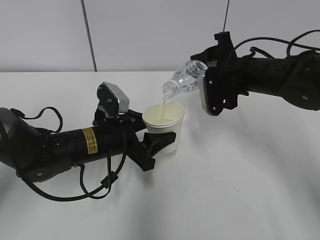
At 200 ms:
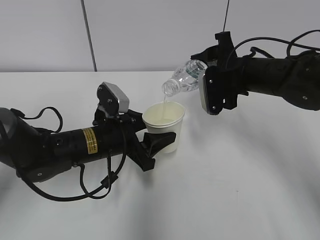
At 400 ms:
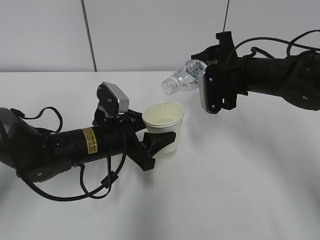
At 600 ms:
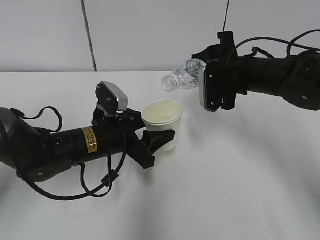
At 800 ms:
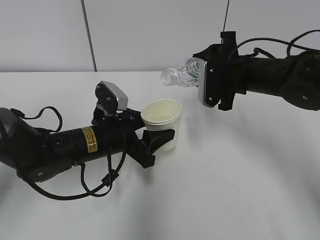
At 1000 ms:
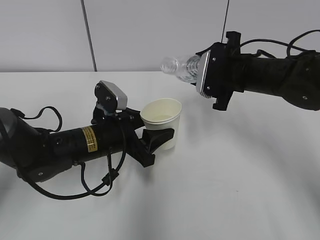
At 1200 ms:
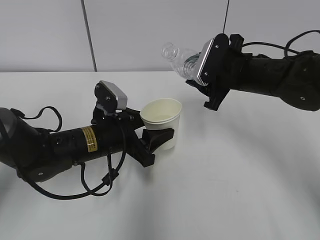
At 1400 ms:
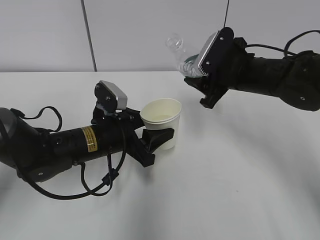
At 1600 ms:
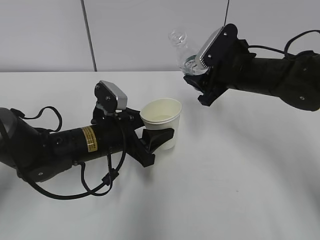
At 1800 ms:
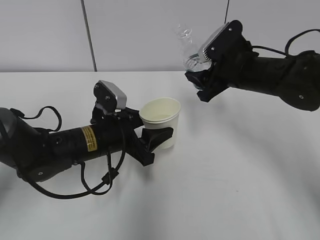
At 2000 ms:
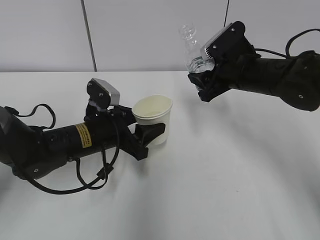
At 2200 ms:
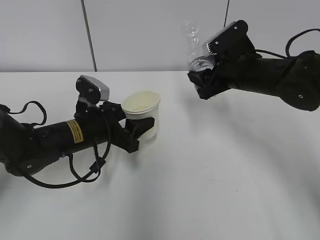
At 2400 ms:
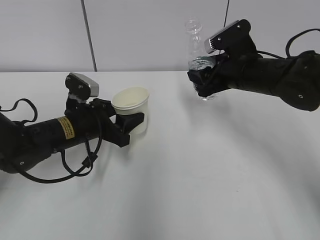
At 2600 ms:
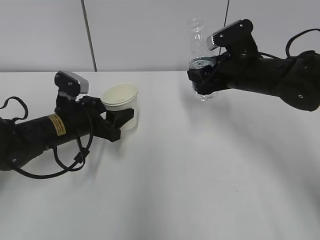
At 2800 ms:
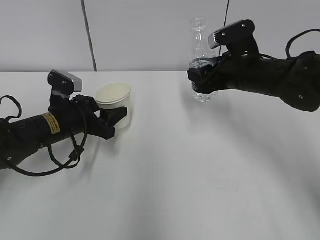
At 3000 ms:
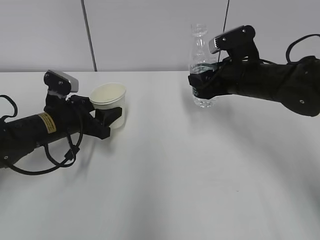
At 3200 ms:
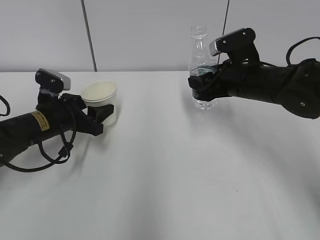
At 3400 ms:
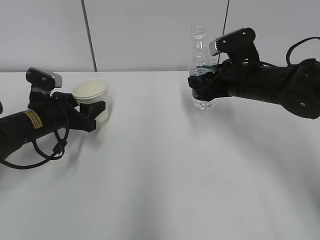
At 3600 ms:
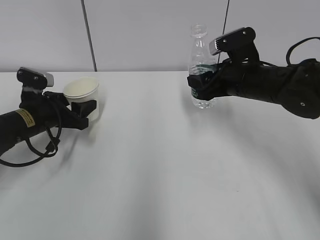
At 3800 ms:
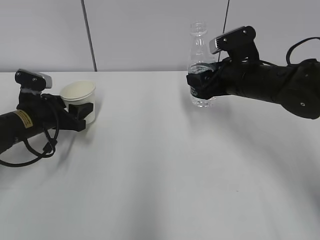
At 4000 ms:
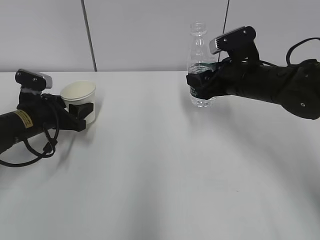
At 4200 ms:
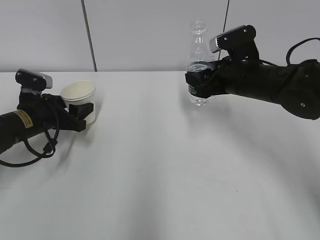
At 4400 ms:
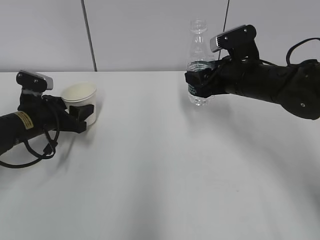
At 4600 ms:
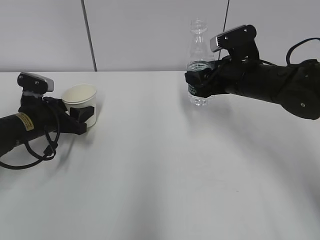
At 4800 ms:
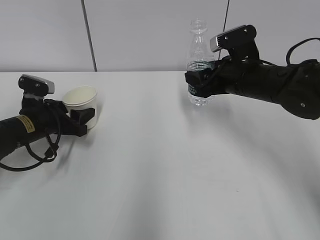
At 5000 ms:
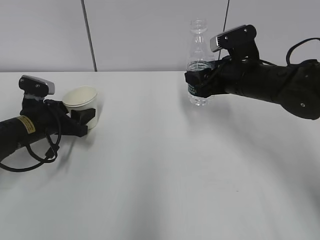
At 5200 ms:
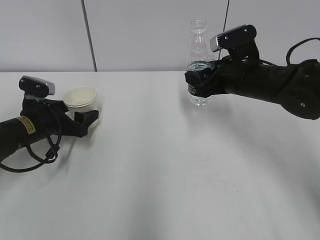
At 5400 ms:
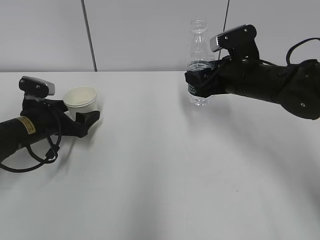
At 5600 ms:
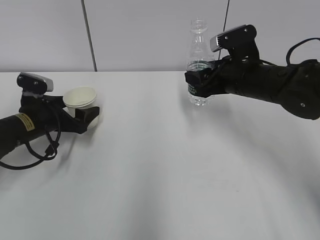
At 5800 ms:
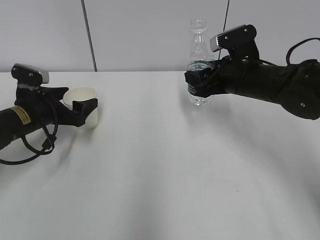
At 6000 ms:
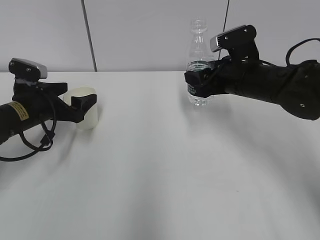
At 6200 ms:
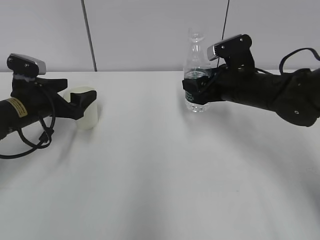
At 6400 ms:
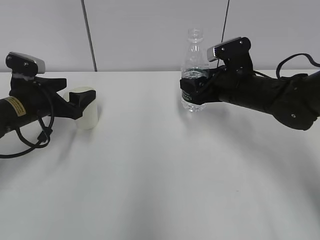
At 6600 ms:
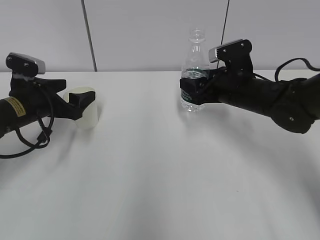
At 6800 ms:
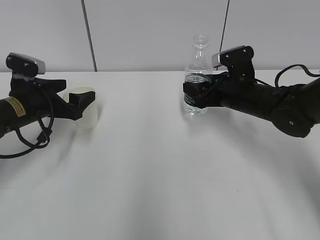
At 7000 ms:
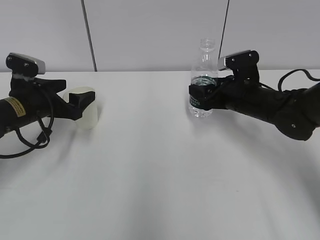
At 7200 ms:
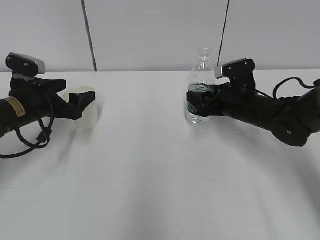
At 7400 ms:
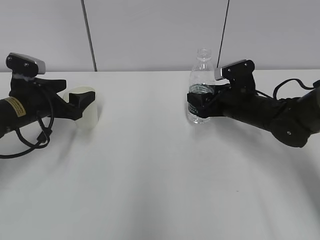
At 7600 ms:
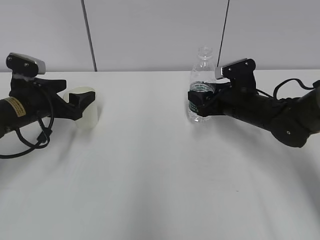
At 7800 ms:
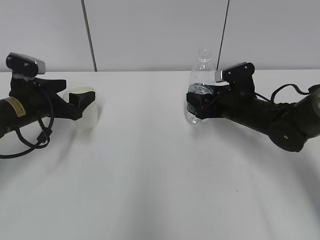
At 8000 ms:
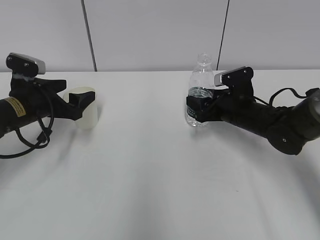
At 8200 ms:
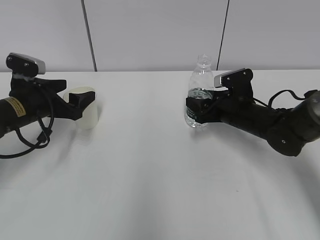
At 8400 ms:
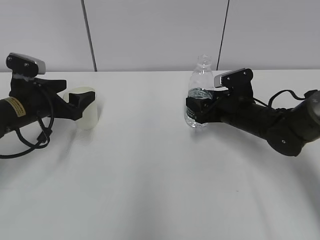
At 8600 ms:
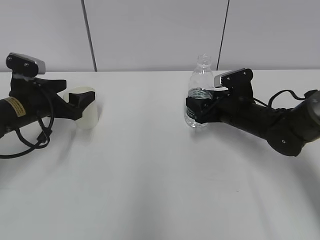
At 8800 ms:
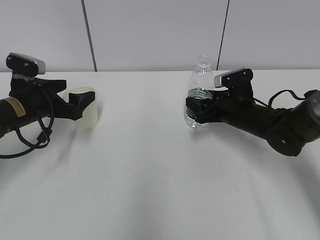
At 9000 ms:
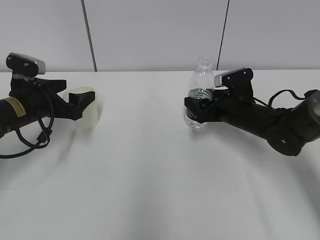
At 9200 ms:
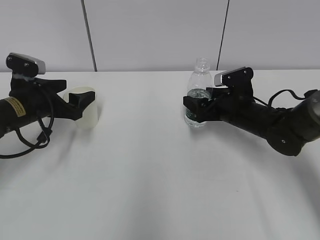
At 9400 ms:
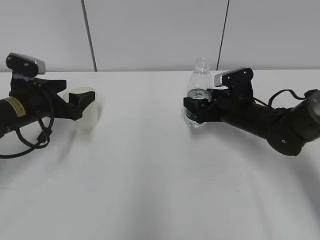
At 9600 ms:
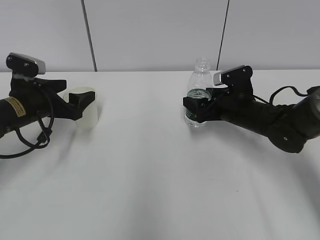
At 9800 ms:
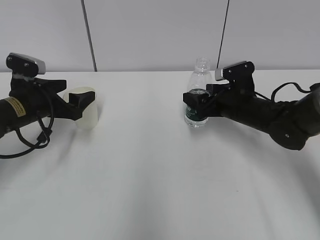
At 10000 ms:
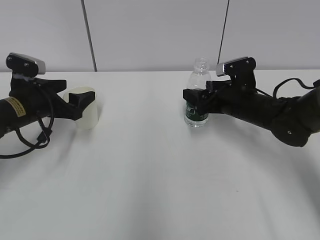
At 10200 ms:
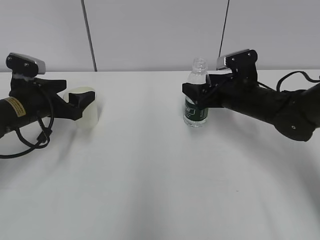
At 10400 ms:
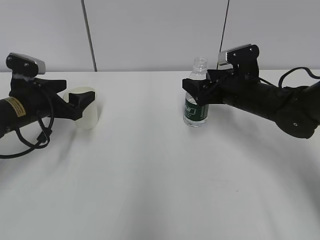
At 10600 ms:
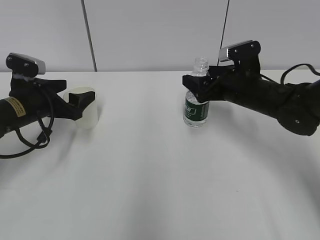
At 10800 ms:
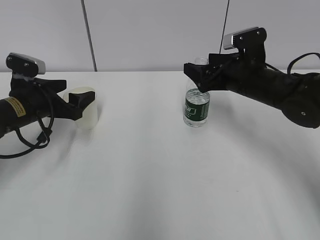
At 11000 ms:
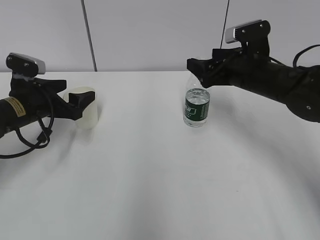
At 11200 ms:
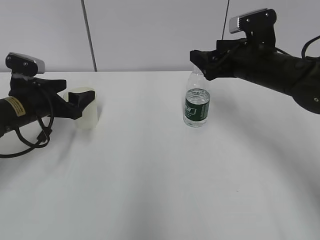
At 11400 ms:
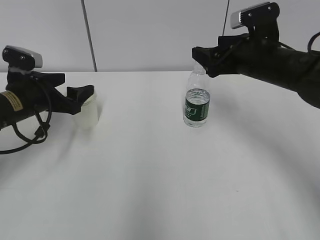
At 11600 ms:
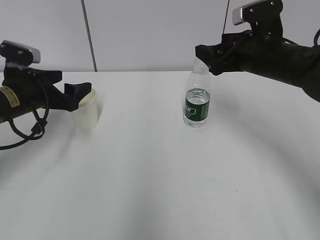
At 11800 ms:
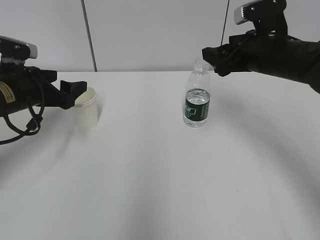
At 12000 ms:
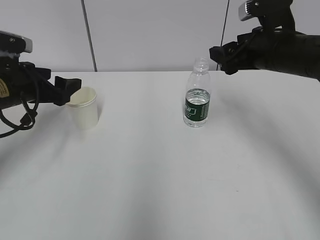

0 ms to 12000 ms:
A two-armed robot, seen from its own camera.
1600 ms to 3000 ms: The left gripper shifts about 10 cm to the left.
3000 ms to 4400 ms: The left gripper moves to the left, some 5 cm.
4400 ms to 6000 ms: The left gripper opens.
6000 ms to 7600 ms: The right gripper heads downward, covering about 5 cm.
7600 ms to 9000 ms: The right gripper opens its fingers.
9000 ms to 10400 ms: The right gripper shifts approximately 5 cm upward, and opens its fingers.
10400 ms to 12000 ms: The right gripper is displaced upward by some 10 cm.

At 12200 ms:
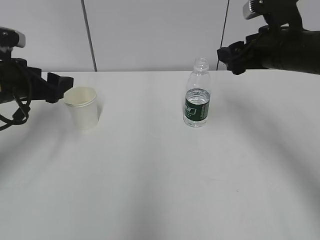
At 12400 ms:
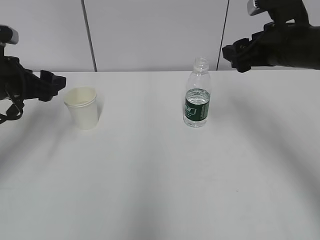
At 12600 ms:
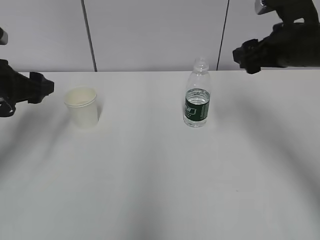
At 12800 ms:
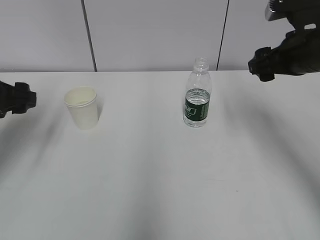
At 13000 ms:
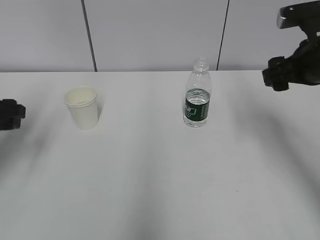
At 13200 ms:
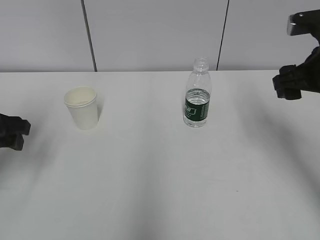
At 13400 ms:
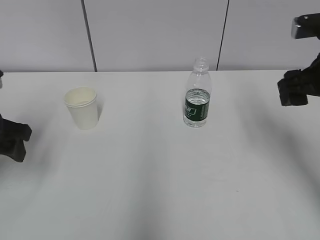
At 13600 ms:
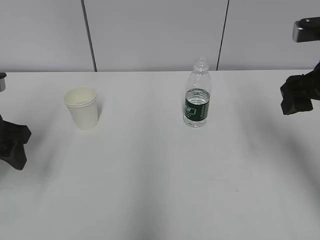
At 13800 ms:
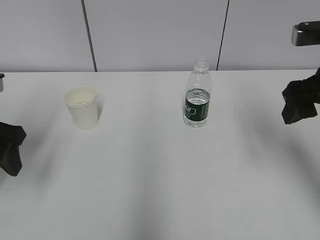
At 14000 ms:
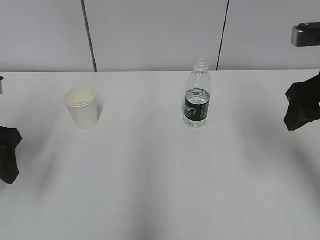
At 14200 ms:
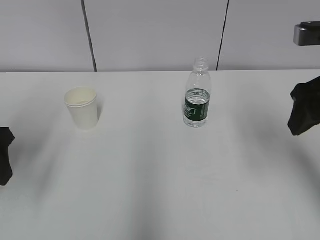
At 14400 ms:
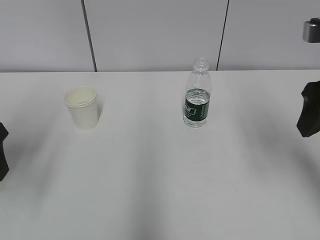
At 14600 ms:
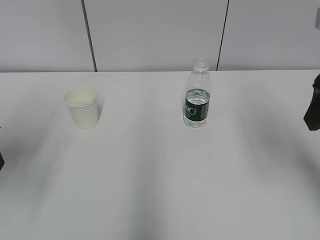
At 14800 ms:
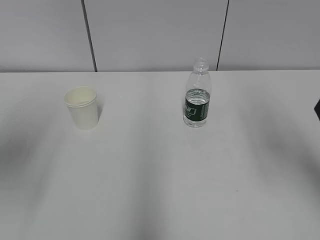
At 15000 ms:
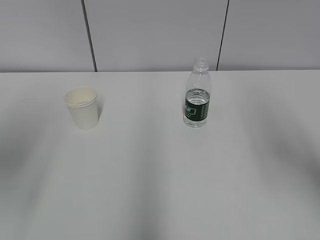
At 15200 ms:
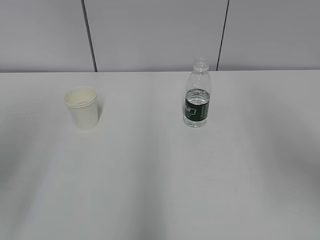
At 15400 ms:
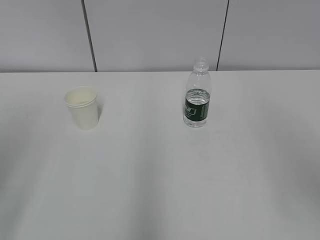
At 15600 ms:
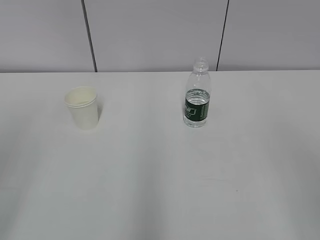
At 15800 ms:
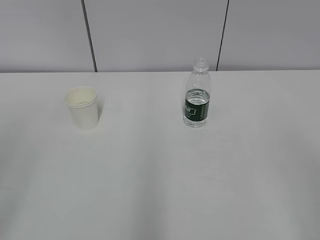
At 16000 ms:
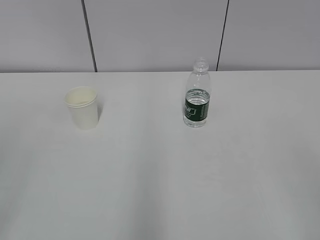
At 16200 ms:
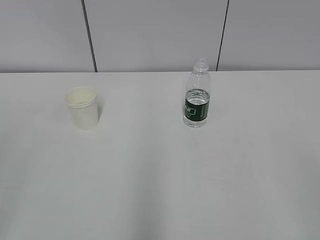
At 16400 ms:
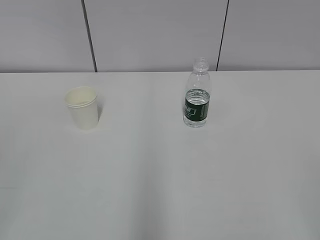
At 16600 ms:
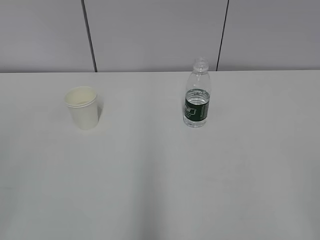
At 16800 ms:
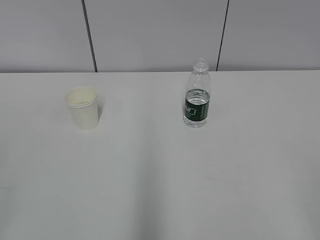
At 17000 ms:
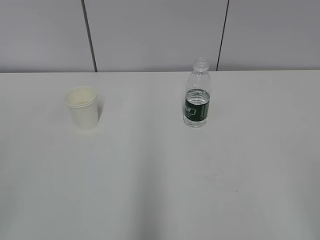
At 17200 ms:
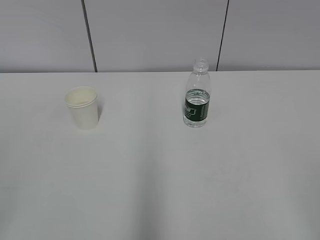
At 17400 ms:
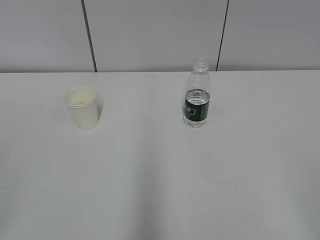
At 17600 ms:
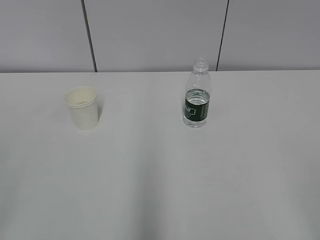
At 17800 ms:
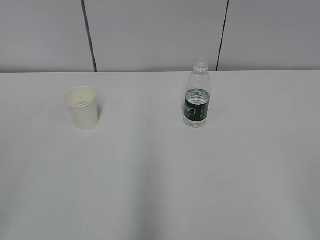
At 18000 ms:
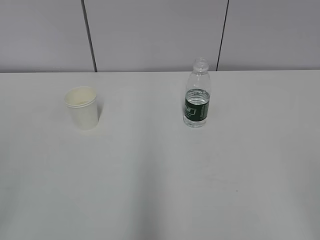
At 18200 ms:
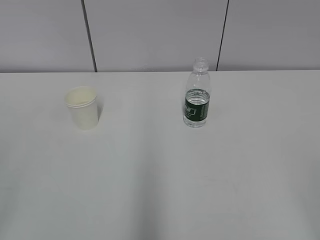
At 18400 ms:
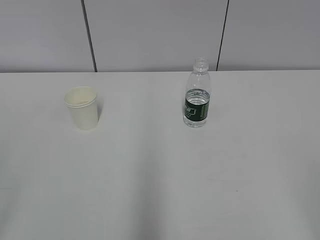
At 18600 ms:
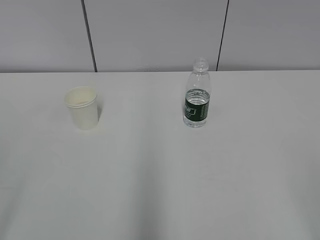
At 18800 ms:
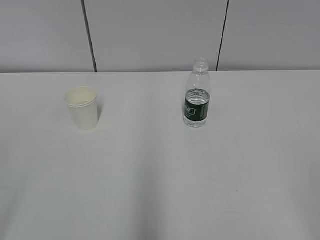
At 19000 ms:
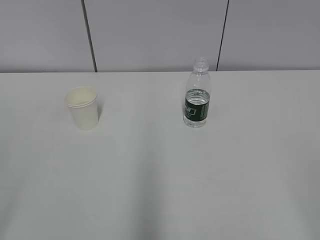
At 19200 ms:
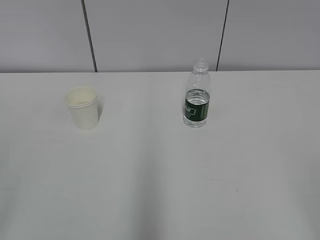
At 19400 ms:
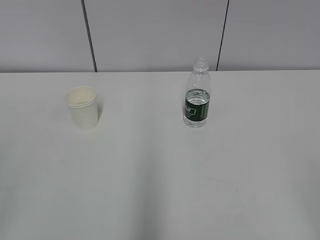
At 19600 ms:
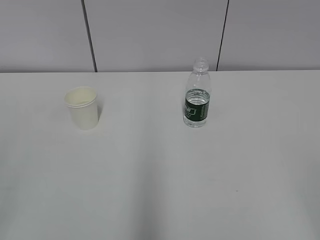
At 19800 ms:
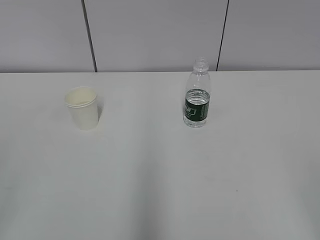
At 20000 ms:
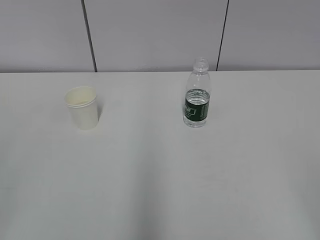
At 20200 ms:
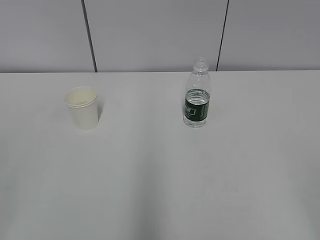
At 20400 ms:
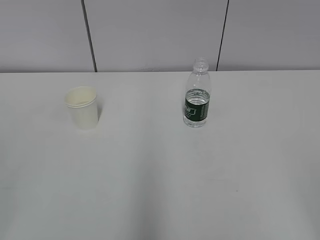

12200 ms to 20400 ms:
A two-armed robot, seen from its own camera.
12200 ms to 13800 ms: The two grippers go approximately 10 cm backward.
13800 ms to 15400 ms: The two grippers go about 20 cm backward and upward.
